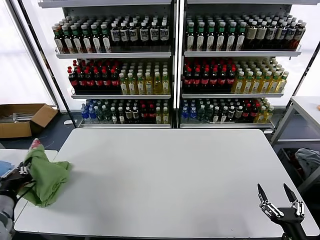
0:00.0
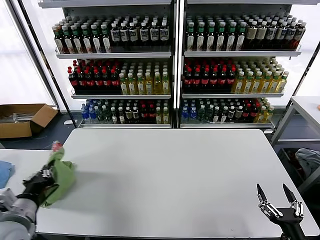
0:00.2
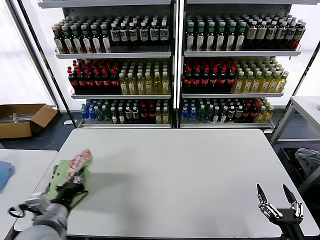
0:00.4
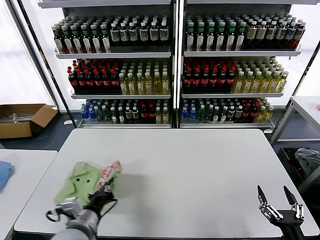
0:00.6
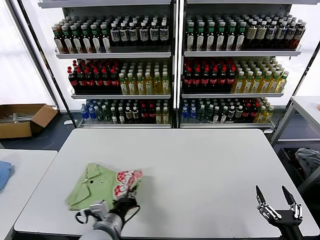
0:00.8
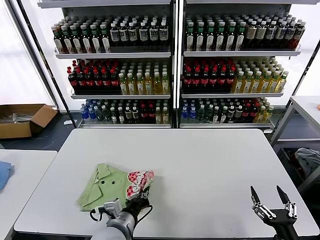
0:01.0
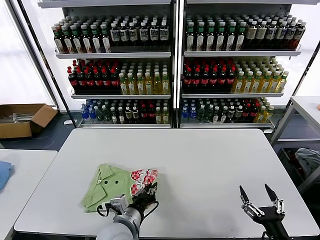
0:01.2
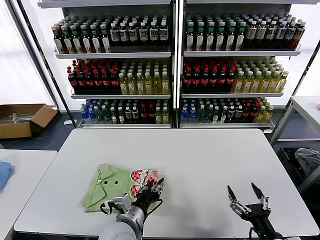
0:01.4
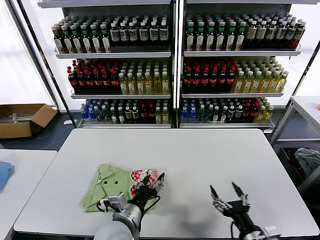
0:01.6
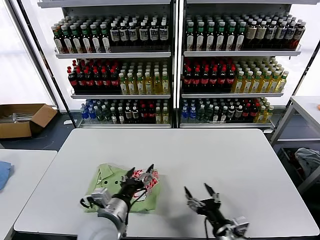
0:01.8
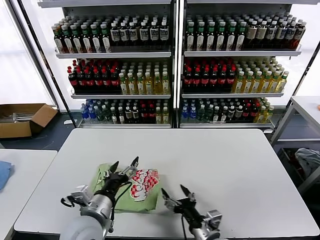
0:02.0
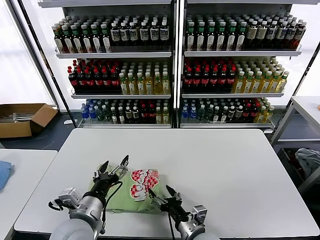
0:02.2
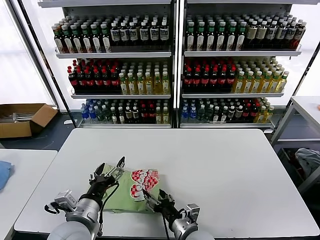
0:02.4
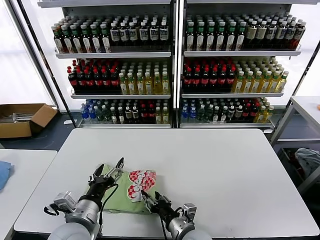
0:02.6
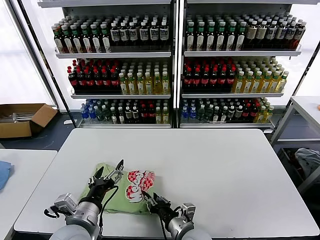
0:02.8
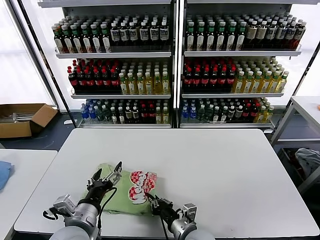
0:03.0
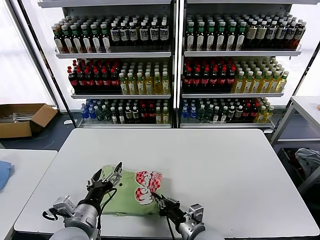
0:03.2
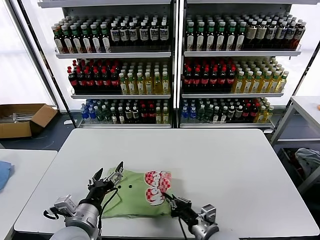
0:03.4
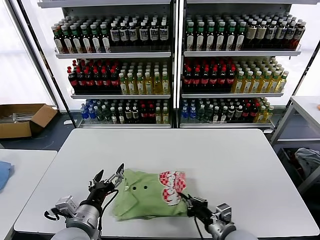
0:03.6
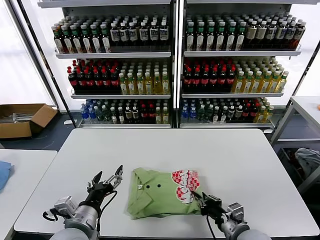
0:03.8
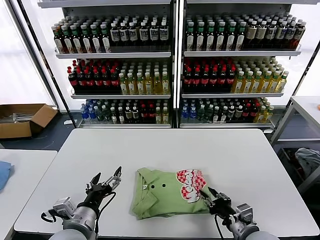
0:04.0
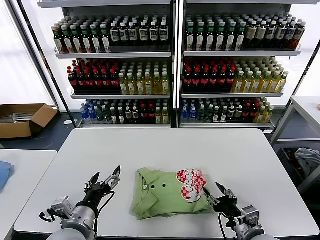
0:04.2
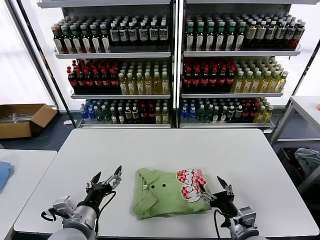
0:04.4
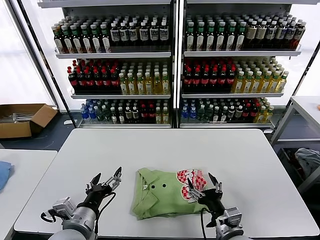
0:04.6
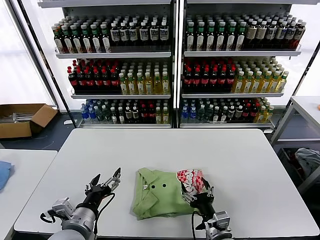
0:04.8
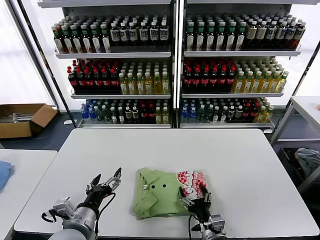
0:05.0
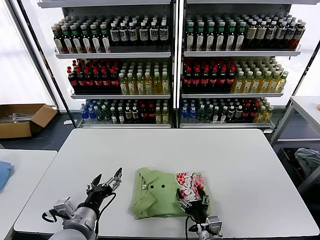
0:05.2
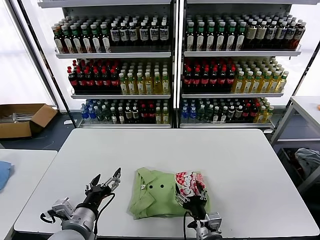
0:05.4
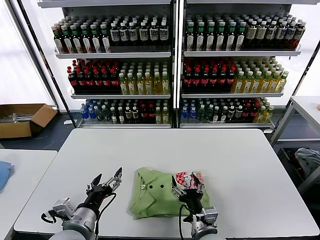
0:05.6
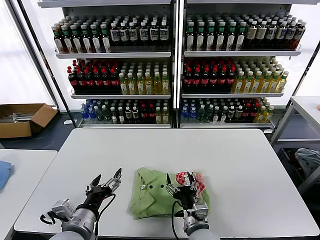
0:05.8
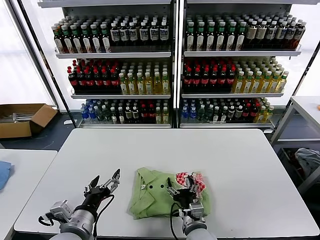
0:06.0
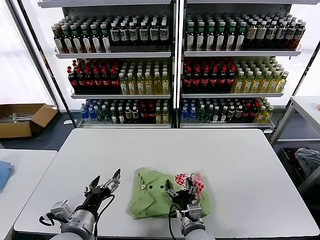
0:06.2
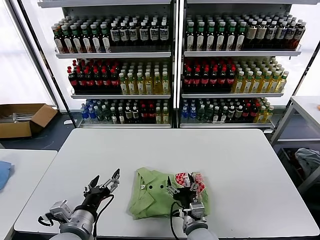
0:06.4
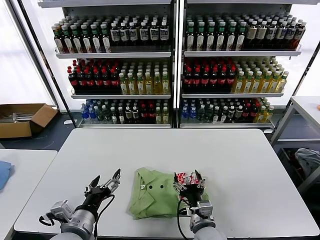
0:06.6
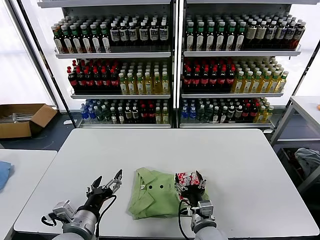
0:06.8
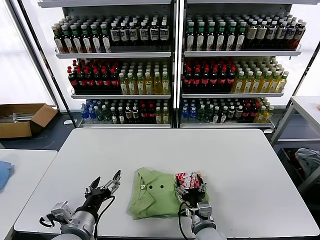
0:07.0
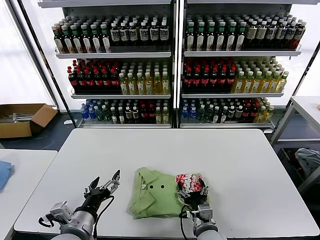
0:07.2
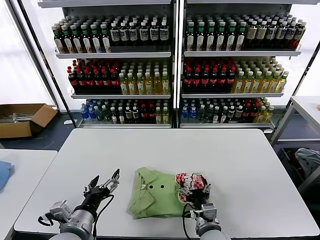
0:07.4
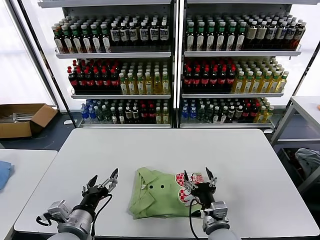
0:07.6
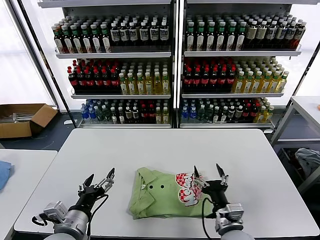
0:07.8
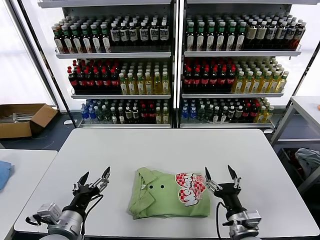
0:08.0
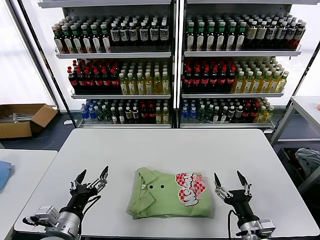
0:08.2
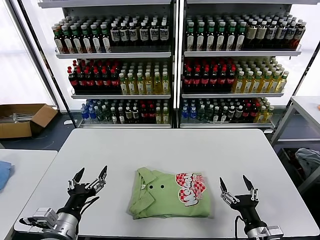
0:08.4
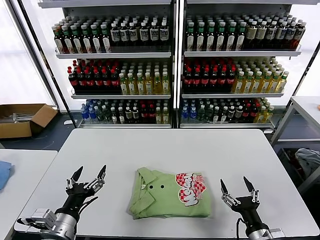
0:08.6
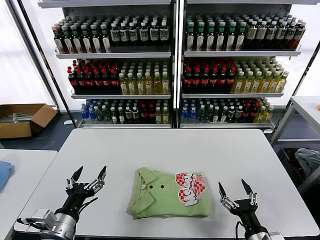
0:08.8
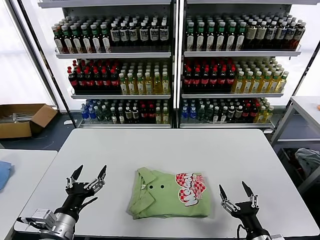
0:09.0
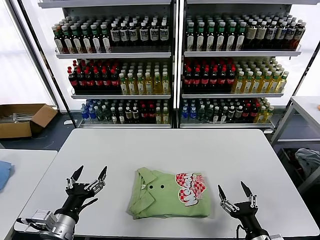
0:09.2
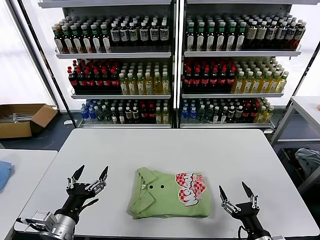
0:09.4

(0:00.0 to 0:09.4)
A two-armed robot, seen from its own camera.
Task of the whole recording: fold and organize the clothes.
Step, 0:01.6 - 0:07.4: Drag the clothes to the center of the table.
0:00.0 - 0:01.6: The right gripper shifts roughly 10 cm to the left and forward, while the left gripper travels to the right by some 30 cm, and opens its fingers.
0:01.6 - 0:03.2: The right gripper shifts roughly 15 cm to the left and forward, and closes up, while the left gripper heads to the left, covering about 10 cm.
0:03.2 - 0:04.8: The right gripper is displaced to the right by about 5 cm, and opens.
0:04.8 - 0:06.2: The right gripper is displaced to the left by approximately 10 cm.
0:06.2 - 0:07.8: The right gripper goes roughly 10 cm to the right and upward.
0:07.8 - 0:09.4: The right gripper moves to the right and backward, some 15 cm.
